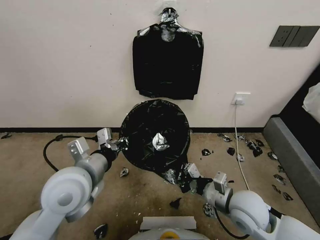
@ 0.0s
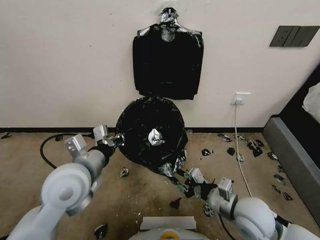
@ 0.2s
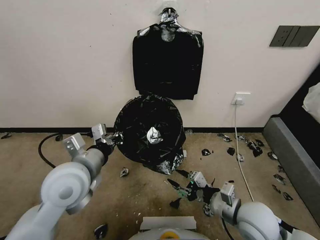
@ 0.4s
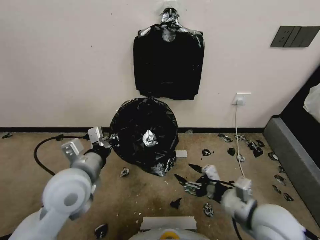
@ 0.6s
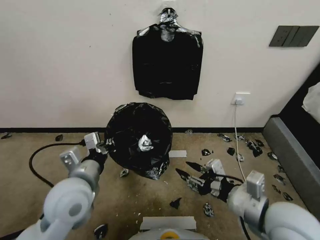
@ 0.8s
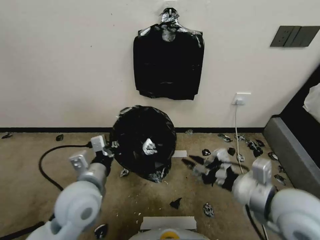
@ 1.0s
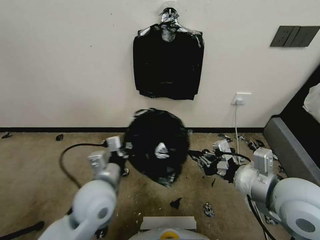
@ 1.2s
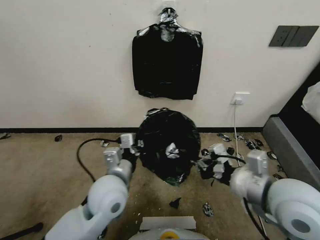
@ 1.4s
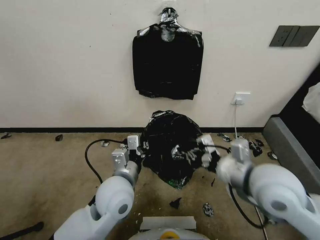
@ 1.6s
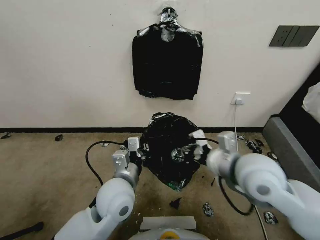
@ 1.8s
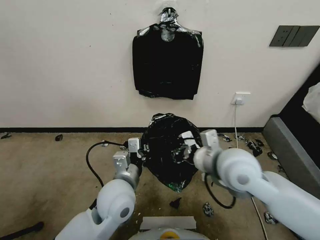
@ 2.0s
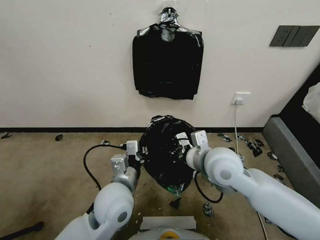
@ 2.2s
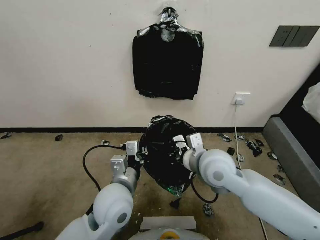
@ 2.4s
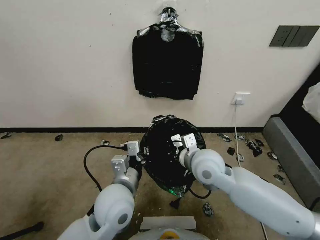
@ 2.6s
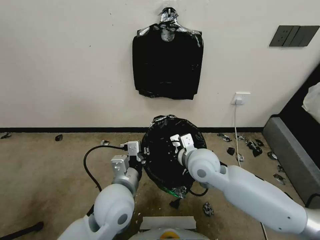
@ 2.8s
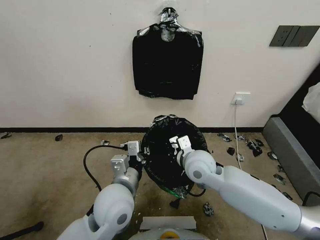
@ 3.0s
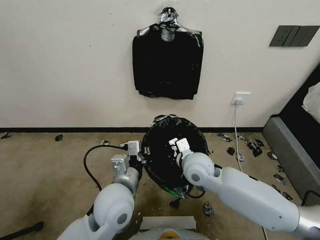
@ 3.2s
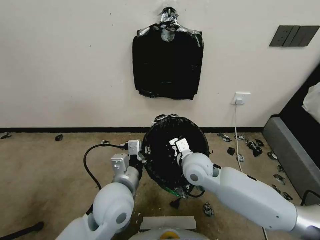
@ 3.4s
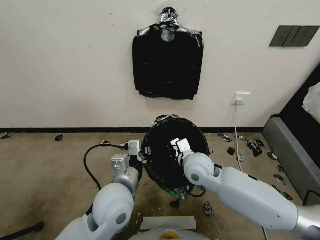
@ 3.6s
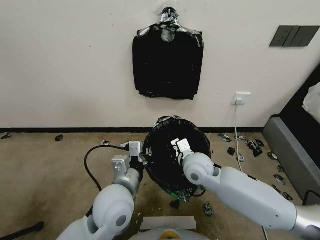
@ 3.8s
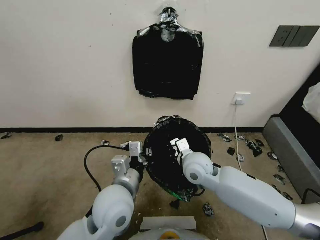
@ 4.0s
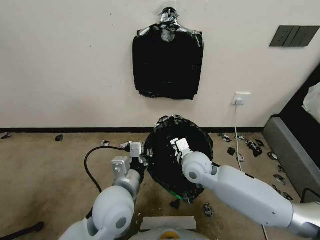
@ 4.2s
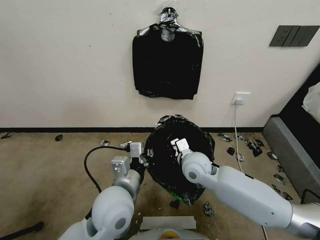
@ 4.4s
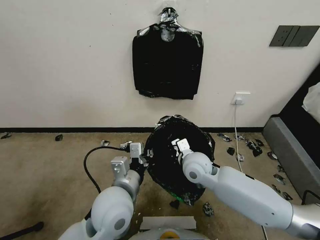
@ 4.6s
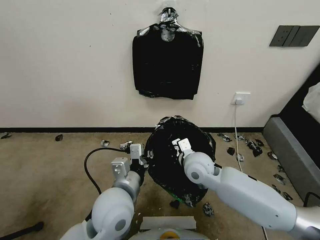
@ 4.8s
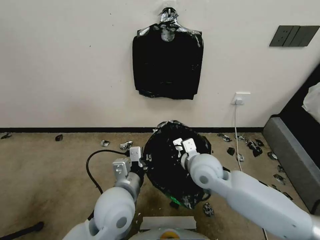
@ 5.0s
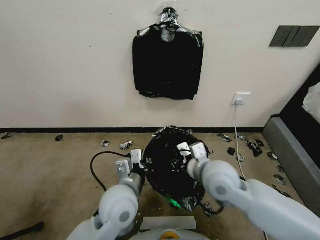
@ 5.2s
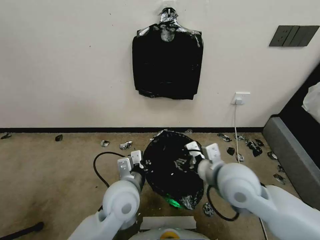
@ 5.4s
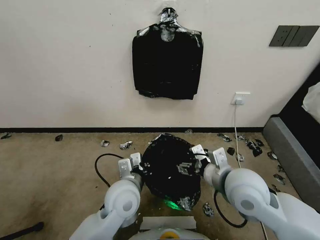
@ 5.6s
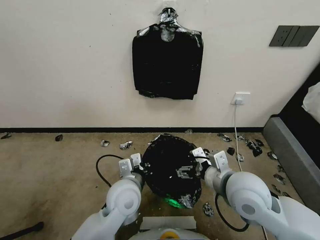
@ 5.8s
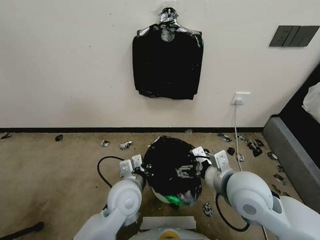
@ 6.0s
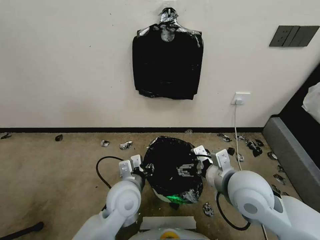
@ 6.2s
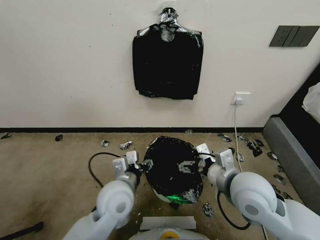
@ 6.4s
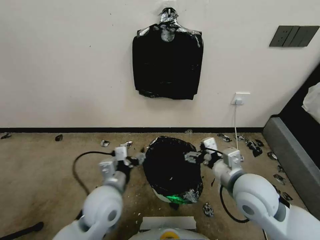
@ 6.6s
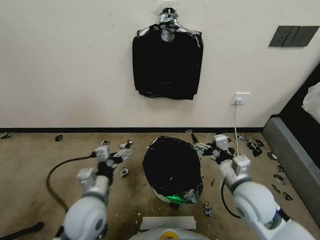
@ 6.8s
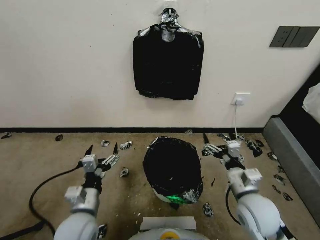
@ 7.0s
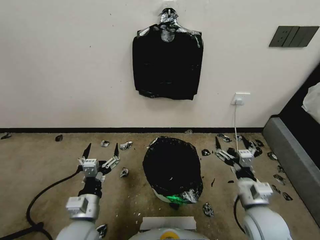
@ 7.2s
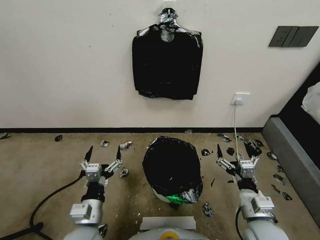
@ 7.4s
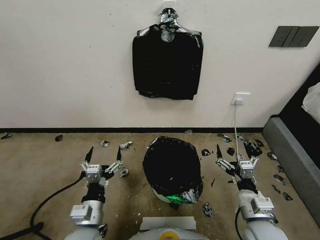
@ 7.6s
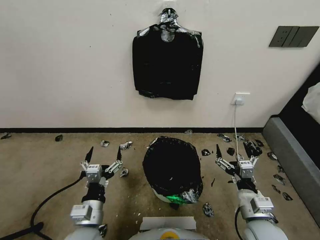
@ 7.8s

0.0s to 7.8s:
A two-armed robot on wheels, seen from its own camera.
Task of the whole recording: Place a trash bag onto the trash bin.
0.0s to 1.6s: The right gripper shifts about 15 cm upward, and opens and closes again. The left gripper travels to the right and downward by roughly 10 cm.
1.6s to 3.2s: The right gripper shifts roughly 20 cm to the left, downward and forward.
3.2s to 4.6s: The grippers stay close to where they were, moving slightly.
4.6s to 6.2s: The right gripper moves backward, upward and to the right, roughly 15 cm, and opens up. Meanwhile the left gripper goes roughly 5 cm downward, and opens its fingers.
6.2s to 7.8s: The right gripper travels downward, backward and to the right by roughly 15 cm. Meanwhile the left gripper shifts about 15 cm backward and to the left, and opens its fingers.
